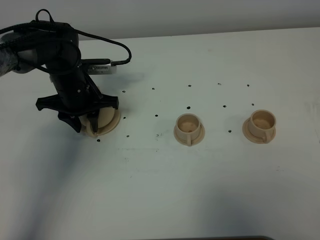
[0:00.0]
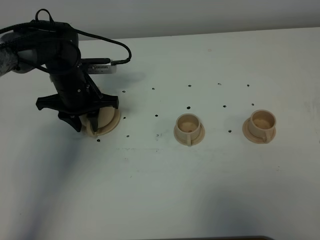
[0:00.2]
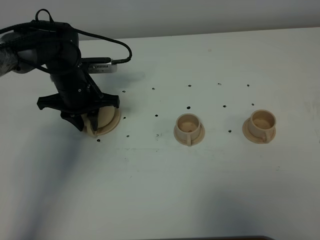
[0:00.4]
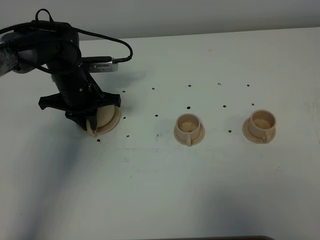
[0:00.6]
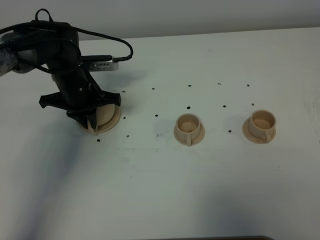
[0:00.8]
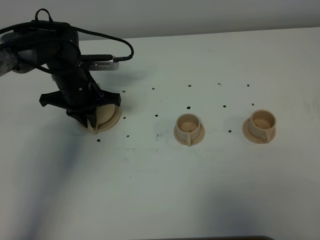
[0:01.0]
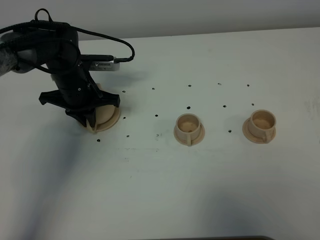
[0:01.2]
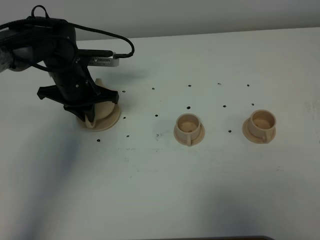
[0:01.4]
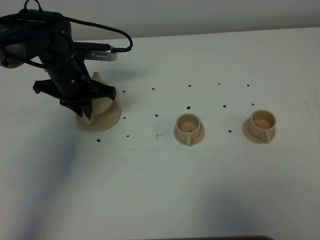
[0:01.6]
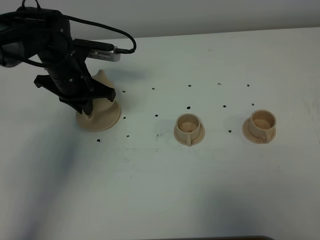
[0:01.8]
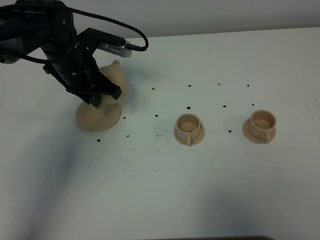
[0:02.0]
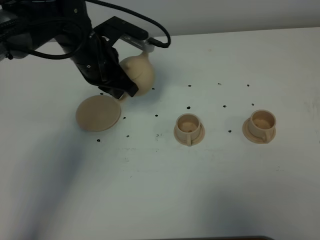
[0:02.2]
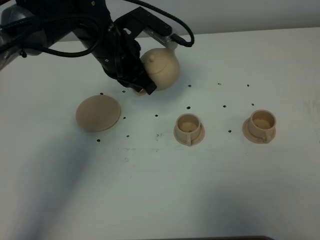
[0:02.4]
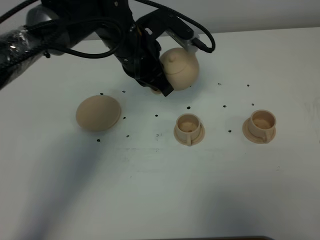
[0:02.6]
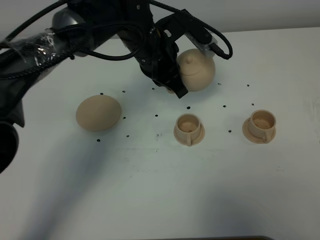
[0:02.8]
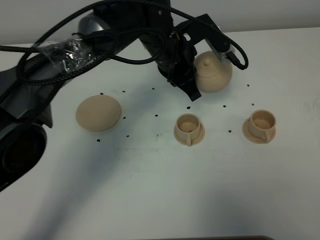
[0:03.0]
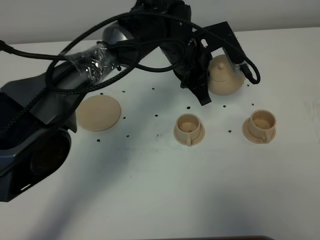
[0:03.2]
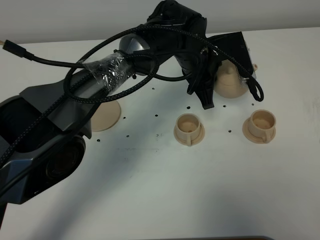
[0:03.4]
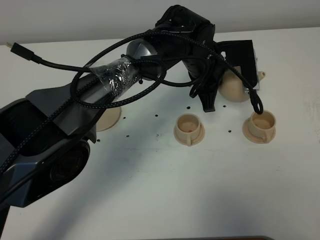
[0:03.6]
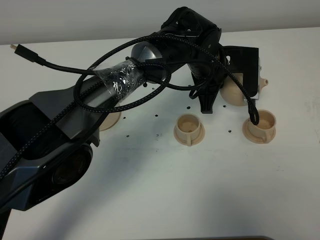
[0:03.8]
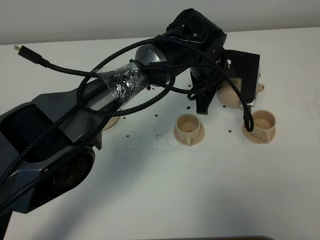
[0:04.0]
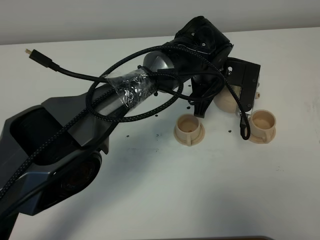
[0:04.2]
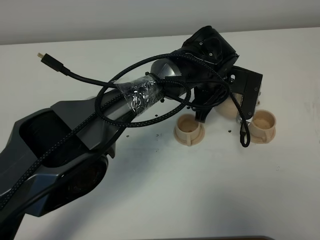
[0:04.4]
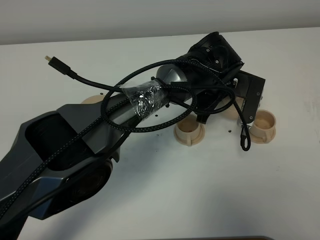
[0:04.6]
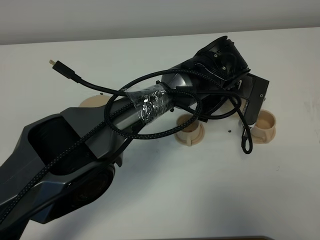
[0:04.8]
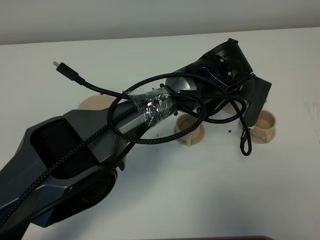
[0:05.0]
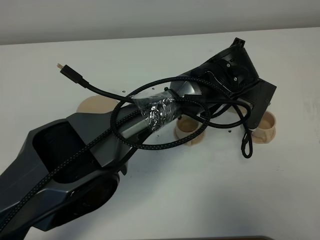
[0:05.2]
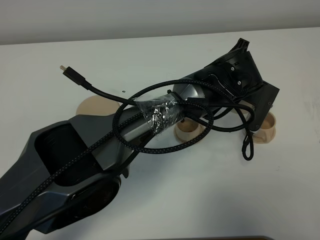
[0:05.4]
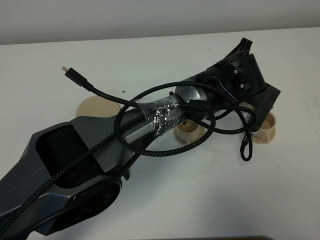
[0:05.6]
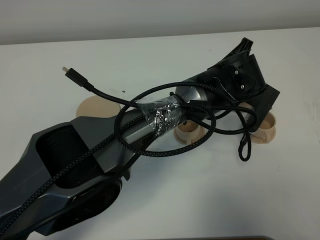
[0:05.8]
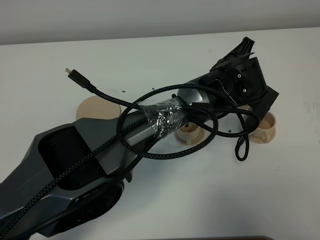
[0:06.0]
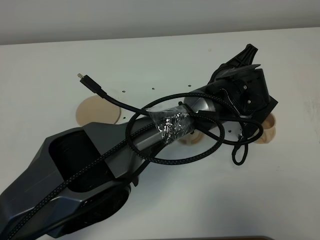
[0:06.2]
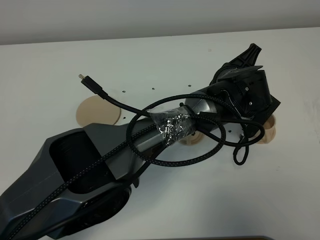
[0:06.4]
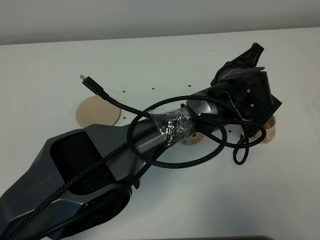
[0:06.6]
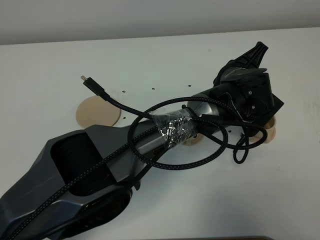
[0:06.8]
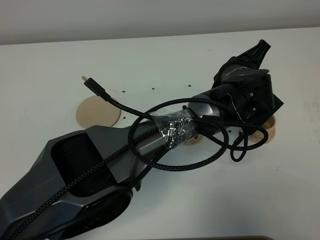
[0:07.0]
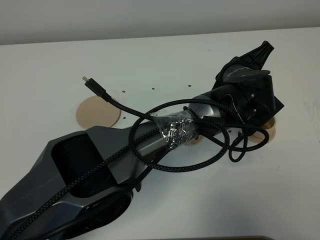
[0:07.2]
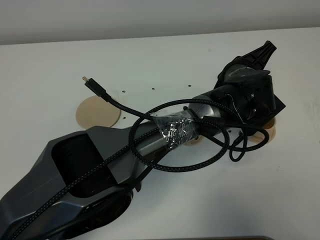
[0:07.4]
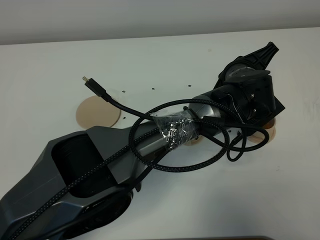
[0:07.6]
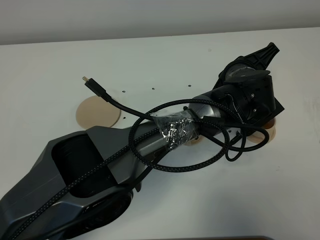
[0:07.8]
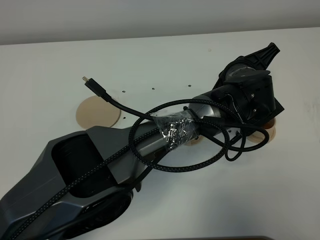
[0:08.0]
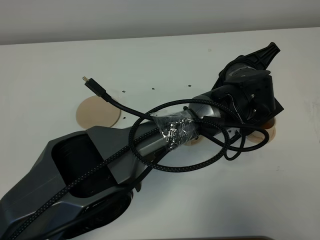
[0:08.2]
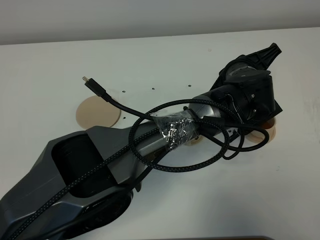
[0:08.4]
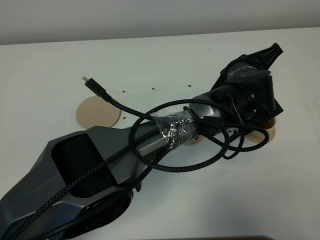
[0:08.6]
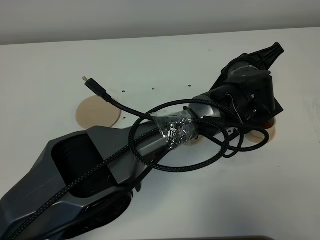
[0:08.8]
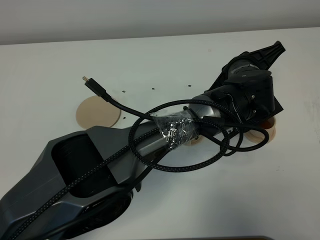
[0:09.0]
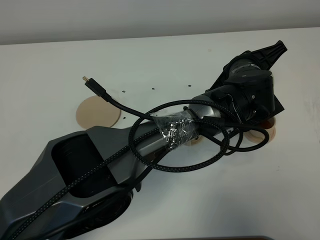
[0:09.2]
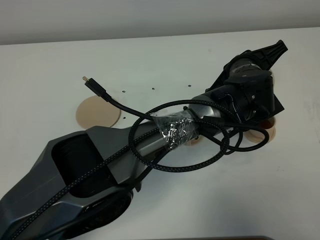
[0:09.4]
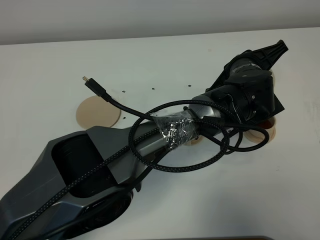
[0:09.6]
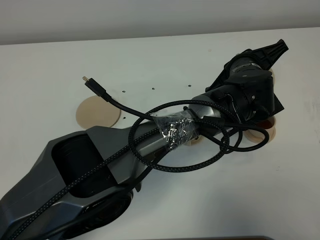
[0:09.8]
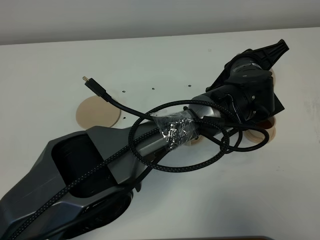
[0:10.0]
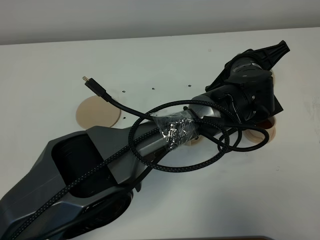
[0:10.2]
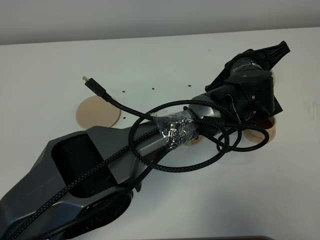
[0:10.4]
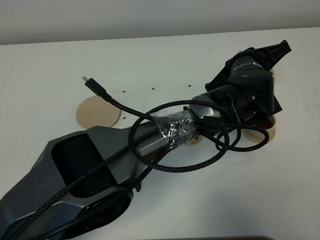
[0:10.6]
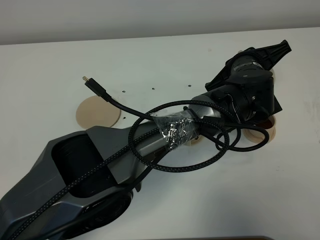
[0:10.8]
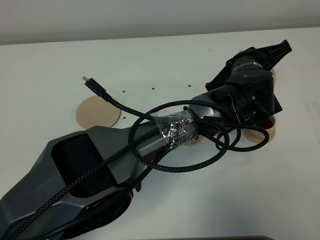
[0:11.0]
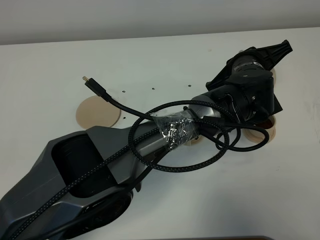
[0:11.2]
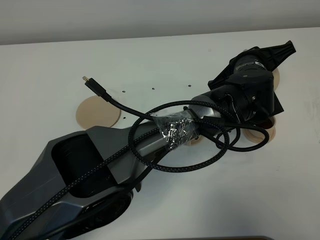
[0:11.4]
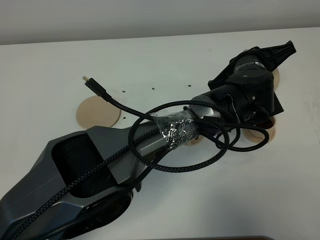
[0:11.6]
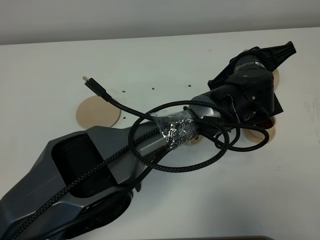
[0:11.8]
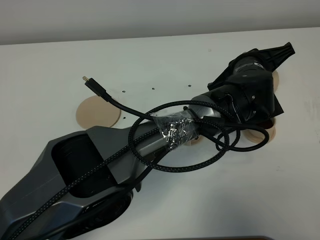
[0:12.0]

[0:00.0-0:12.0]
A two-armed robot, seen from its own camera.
Task of the whole recording: grasp the brown teapot and pour the tea into the two brown teacups one by one, put the brown teapot back in its original place.
0:00.0 to 0:01.6: The left gripper closes its fingers.
0:01.6 to 0:03.0: The left gripper shifts some 20 cm to the right.
0:03.0 to 0:04.4: The left gripper goes about 10 cm to the right and downward.
0:07.6 to 0:09.0: The grippers stay close to where they were, moving slightly.
0:09.0 to 0:10.4: The two grippers keep their place.
0:10.4 to 0:12.0: The grippers move only a little.

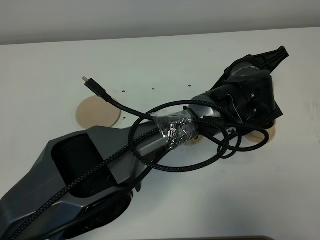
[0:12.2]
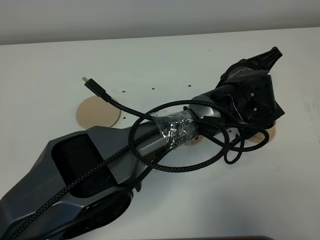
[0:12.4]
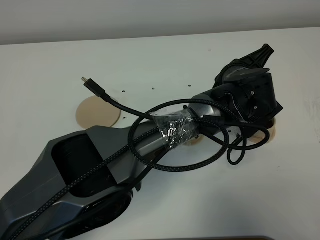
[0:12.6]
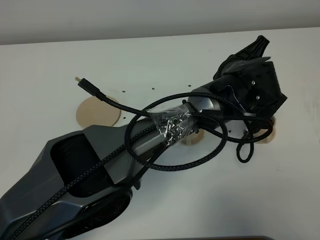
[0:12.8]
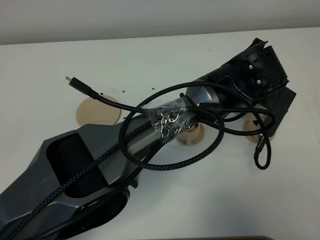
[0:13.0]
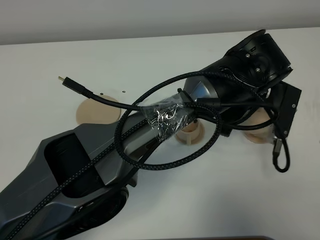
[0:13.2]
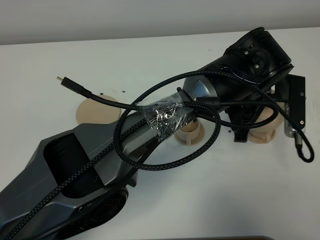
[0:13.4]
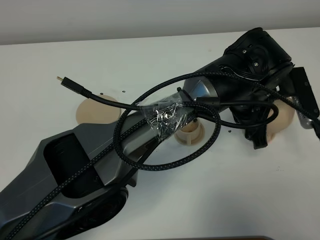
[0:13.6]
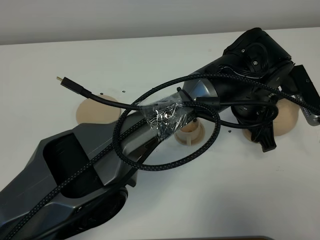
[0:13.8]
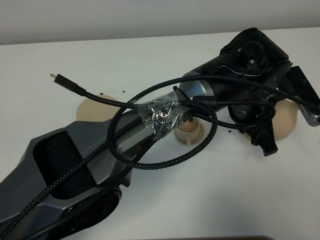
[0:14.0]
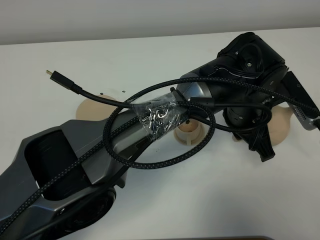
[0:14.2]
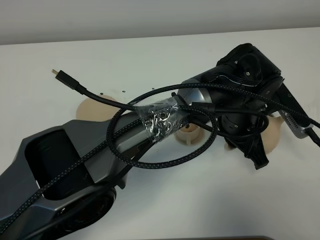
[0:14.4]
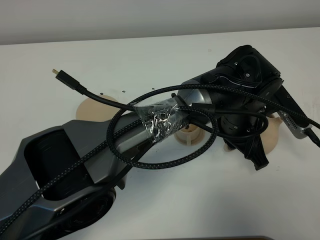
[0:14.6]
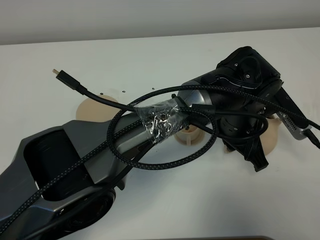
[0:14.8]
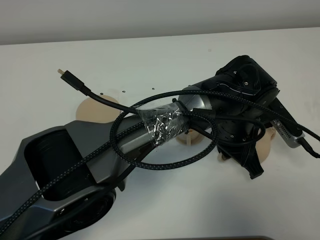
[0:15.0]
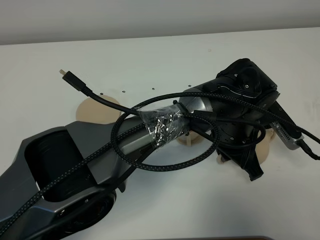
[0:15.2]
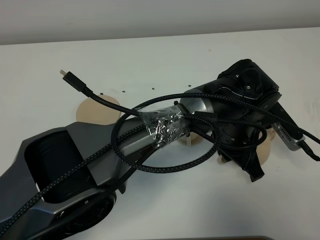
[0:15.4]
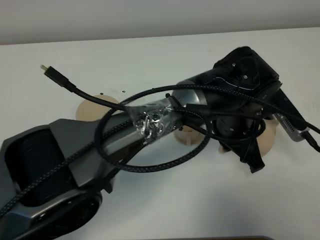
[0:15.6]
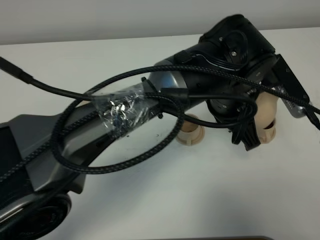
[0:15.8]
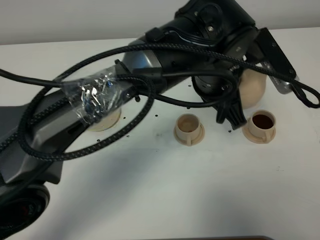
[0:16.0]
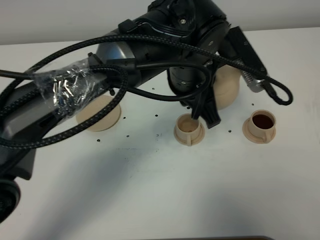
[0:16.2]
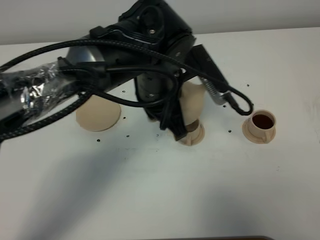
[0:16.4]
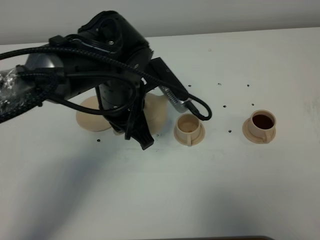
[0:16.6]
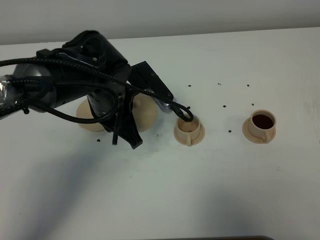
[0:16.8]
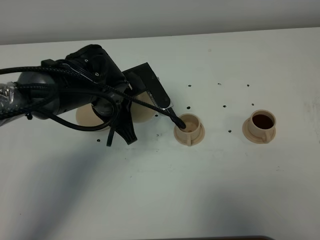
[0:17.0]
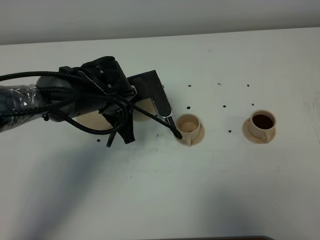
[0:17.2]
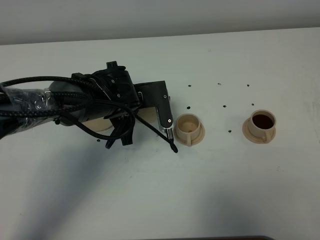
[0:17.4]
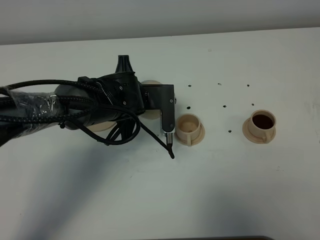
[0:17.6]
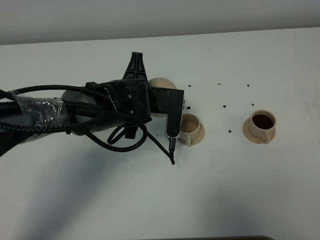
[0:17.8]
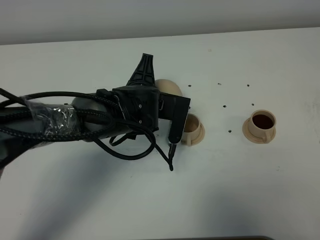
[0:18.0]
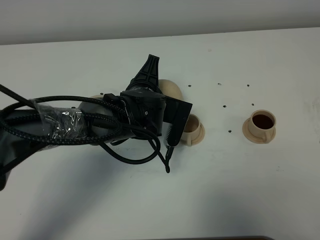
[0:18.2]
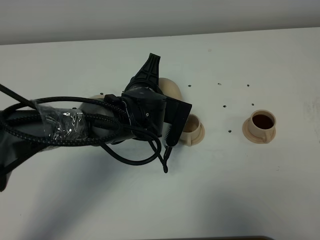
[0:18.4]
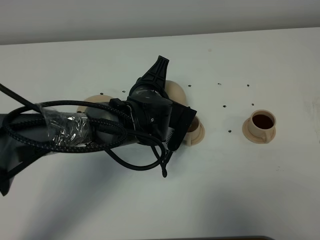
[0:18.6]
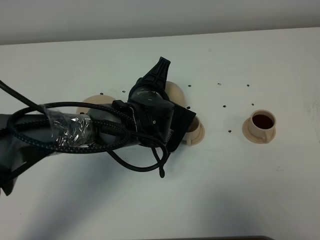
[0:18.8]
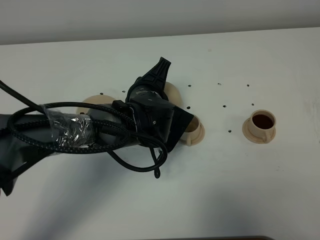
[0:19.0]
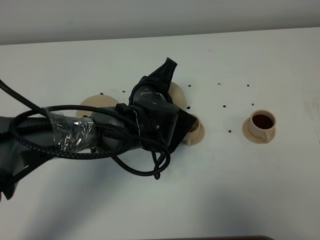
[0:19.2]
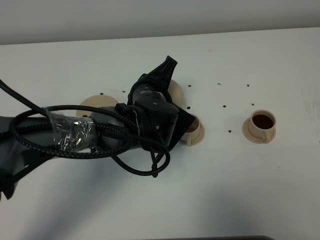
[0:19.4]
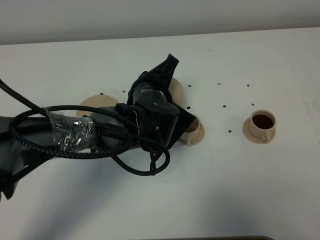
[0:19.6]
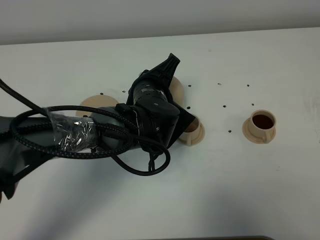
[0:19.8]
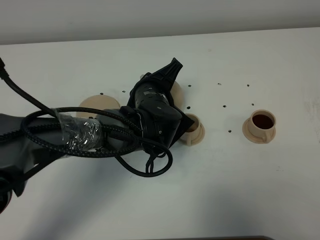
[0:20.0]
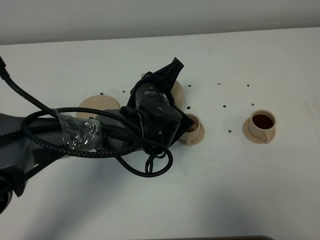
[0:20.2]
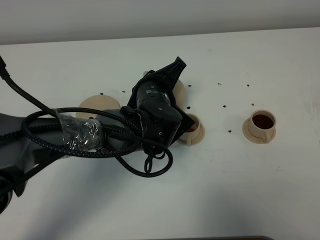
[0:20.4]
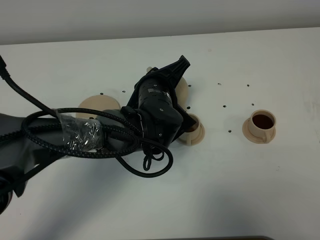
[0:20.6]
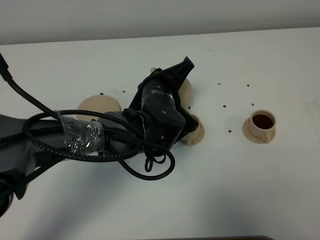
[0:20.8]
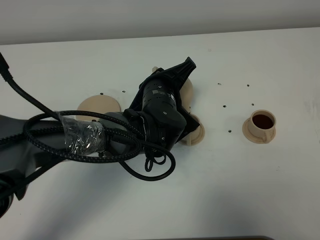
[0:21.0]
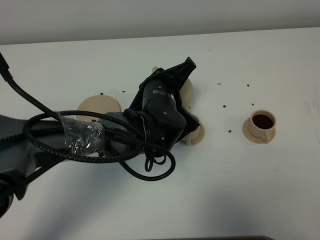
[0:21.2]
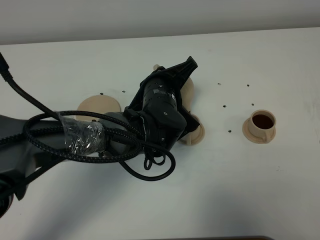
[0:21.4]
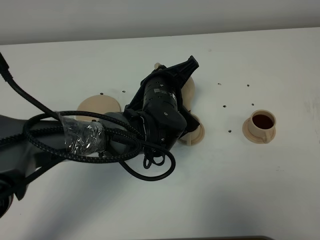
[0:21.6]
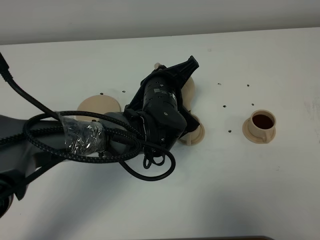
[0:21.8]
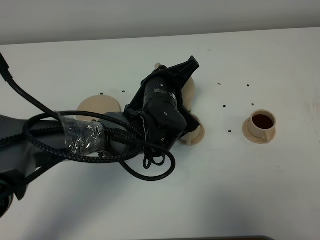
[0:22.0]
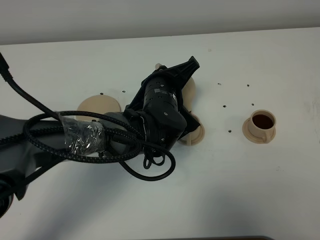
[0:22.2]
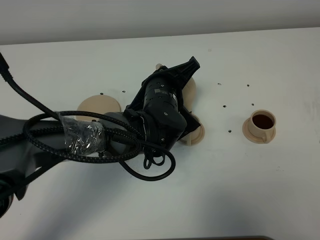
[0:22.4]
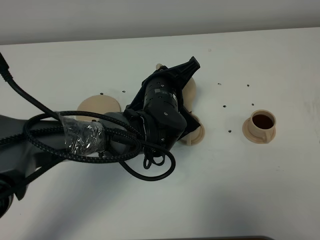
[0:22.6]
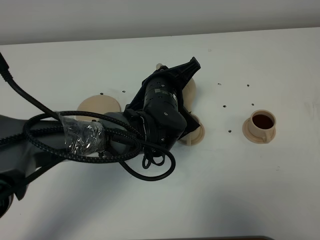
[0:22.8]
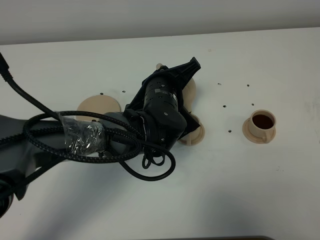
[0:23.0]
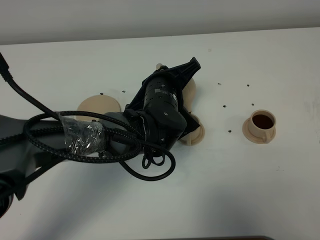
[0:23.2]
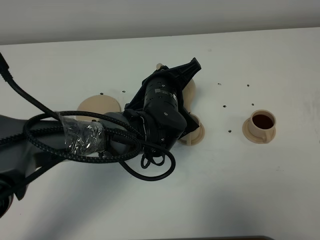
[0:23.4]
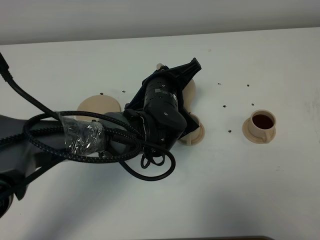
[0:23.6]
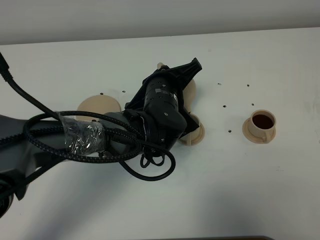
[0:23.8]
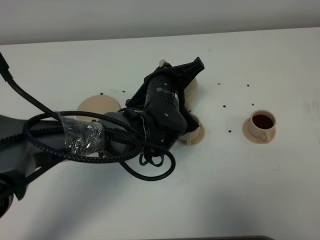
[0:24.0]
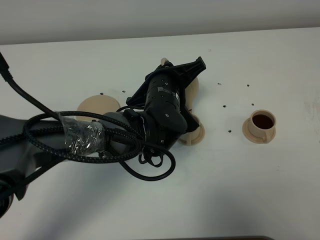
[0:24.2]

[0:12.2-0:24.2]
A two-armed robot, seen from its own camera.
Task of the whole recording: grasp the brown teapot and pour the tea into the two brown teacups one by one, put the brown teapot back in its original place.
0:12.2 to 0:13.8: The left gripper moves about 5 cm.
0:13.8 to 0:15.2: The left gripper moves about 5 cm.
0:15.2 to 0:16.6: The left gripper heads to the left and upward, covering approximately 20 cm.
0:16.6 to 0:18.2: The left gripper moves downward, some 10 cm.
0:19.8 to 0:21.2: The grippers make only small movements.
0:21.2 to 0:22.6: The two grippers keep their place.
0:22.6 to 0:24.2: The grippers move only a little.
